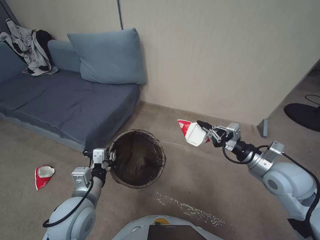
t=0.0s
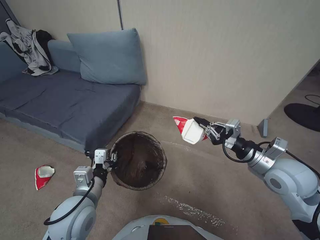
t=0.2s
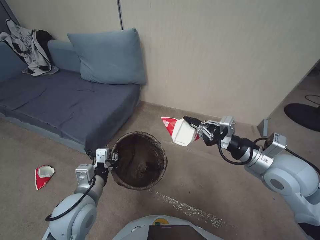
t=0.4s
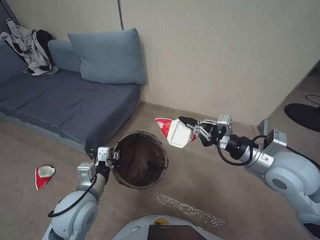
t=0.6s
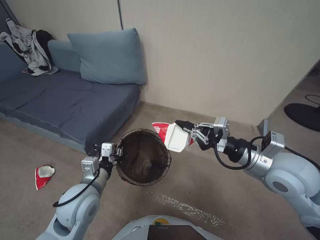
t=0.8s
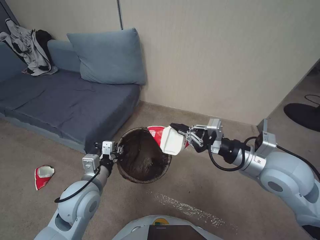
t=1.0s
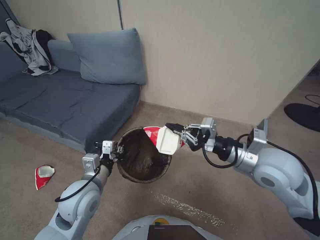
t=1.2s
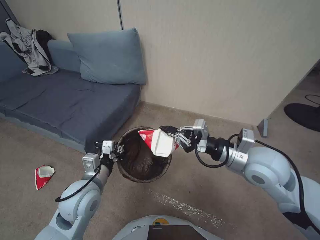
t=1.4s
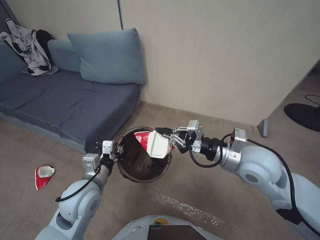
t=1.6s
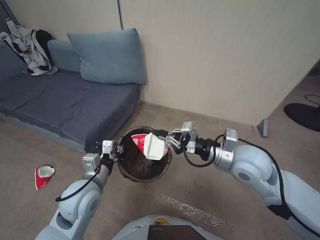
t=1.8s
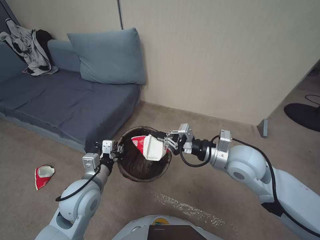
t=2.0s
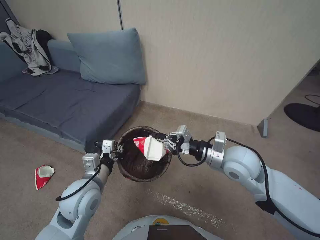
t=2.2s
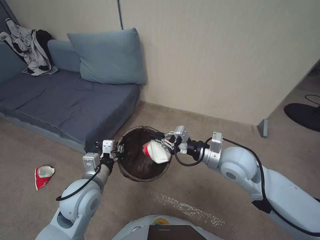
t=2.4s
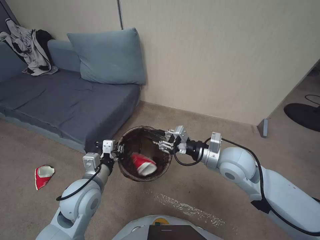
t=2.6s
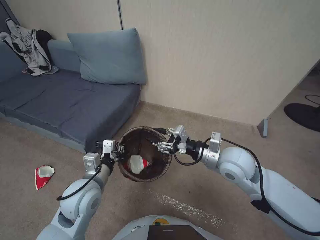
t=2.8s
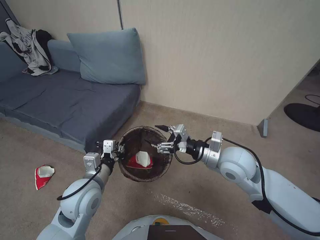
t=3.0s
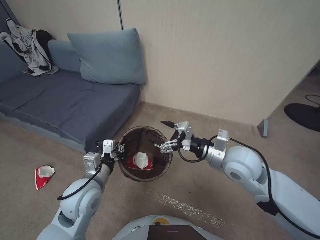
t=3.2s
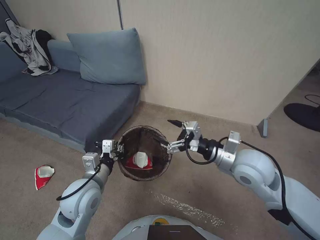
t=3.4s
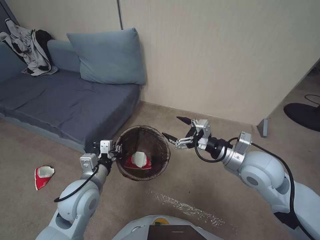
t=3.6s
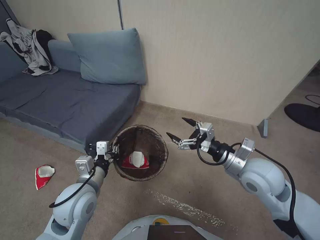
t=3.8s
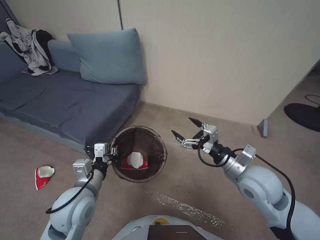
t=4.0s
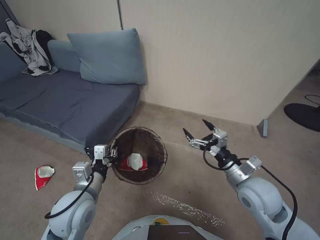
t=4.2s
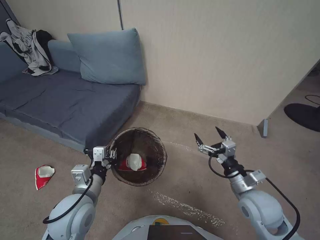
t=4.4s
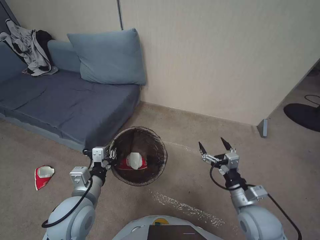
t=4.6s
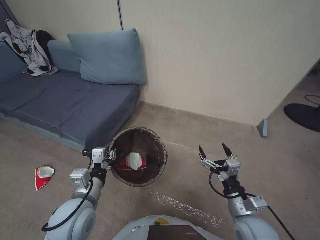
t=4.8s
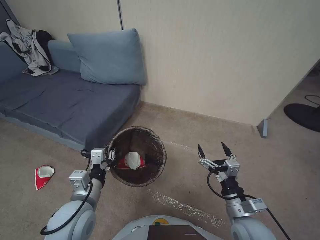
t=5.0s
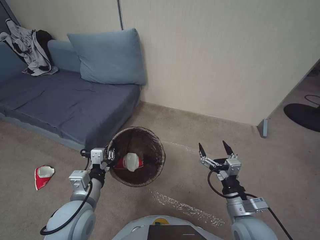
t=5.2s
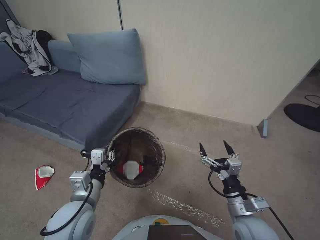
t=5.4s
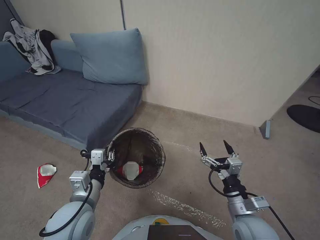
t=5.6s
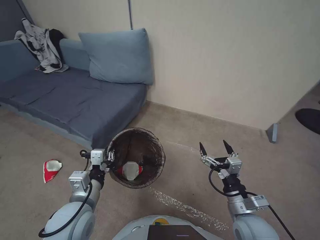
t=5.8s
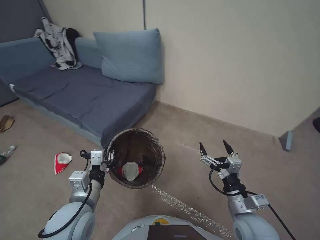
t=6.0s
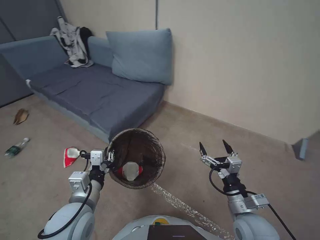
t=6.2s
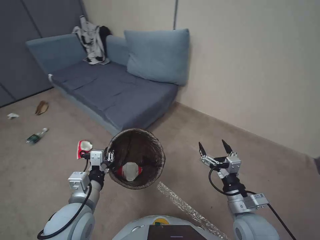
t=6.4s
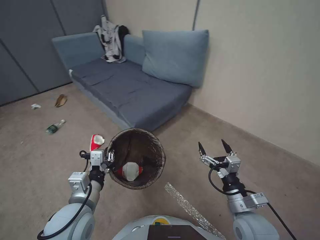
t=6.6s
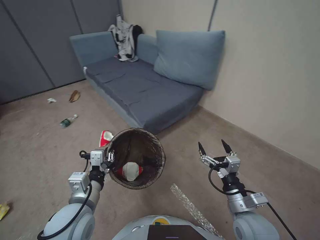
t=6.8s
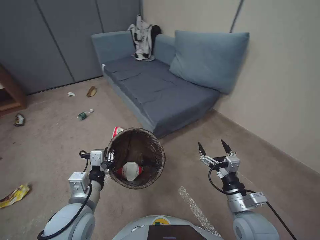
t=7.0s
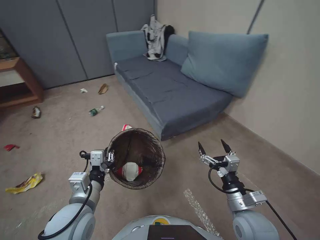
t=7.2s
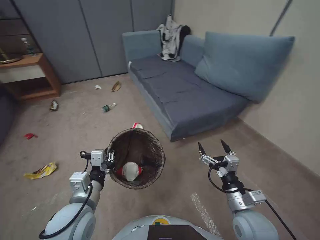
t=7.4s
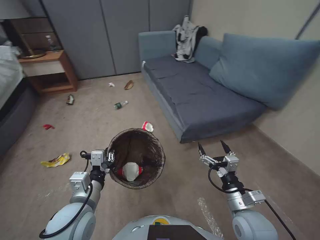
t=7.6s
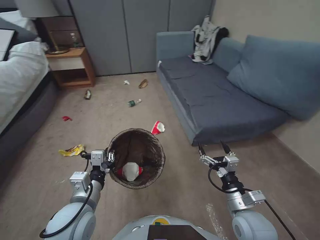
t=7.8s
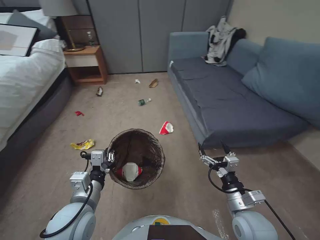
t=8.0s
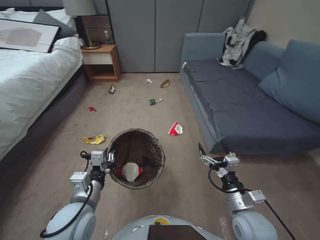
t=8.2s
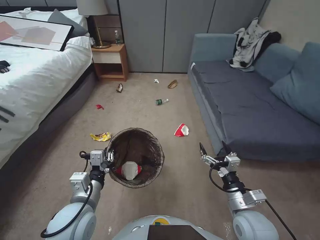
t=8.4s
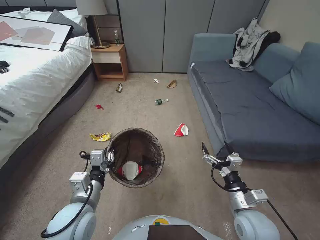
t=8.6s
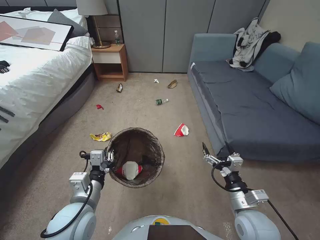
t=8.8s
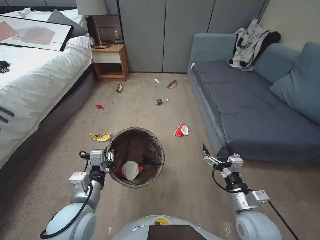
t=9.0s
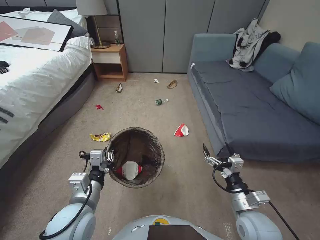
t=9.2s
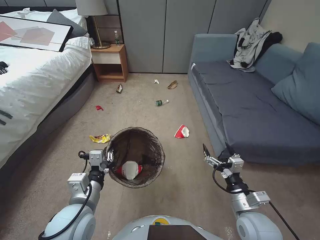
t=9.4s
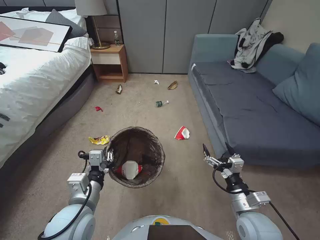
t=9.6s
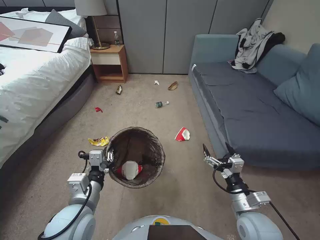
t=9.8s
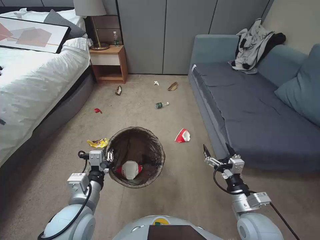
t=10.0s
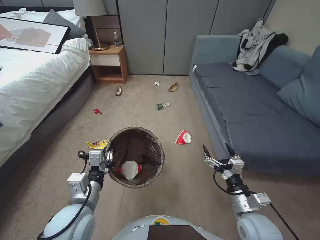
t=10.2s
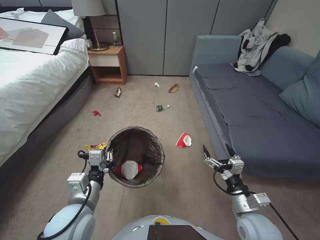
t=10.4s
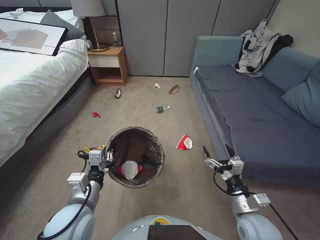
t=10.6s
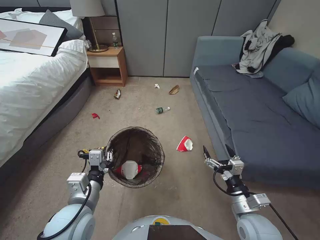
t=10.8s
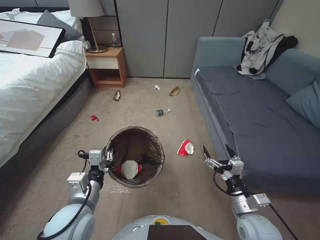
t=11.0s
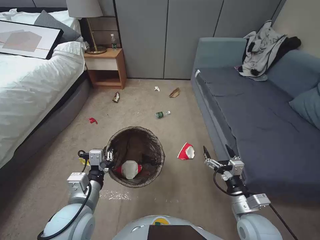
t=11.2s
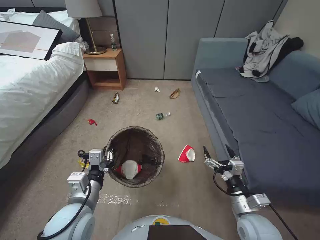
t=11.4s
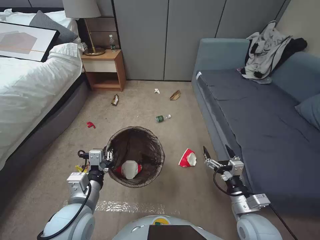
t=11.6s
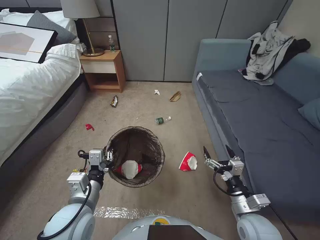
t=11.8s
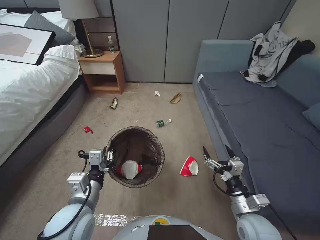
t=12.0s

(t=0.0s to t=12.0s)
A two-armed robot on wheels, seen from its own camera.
Task of the whole recording: Pick up the trash bin, then pick up the garbage from the floor and place it into the trash bin.
t=0.0s - t=1.6s: The right gripper heads to the left and upward, covering about 10 cm.
t=1.6s - t=3.0s: The right gripper moves some 5 cm, and opens up.
t=3.0s - t=4.4s: The right gripper moves backward, downward and to the right, some 15 cm, and opens up.
t=4.4s - t=6.0s: The right gripper heads backward, covering approximately 5 cm.
t=9.0s - t=10.4s: The two grippers keep their place.
t=10.4s - t=12.0s: The two grippers keep their place.

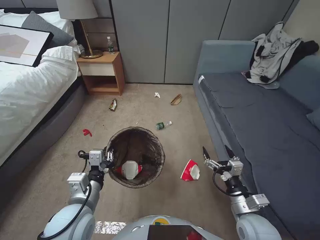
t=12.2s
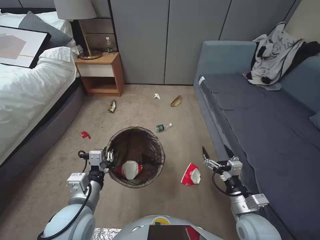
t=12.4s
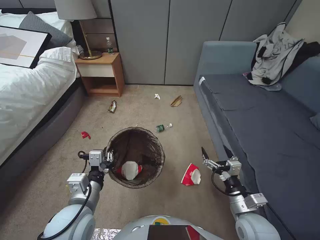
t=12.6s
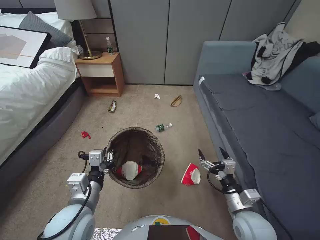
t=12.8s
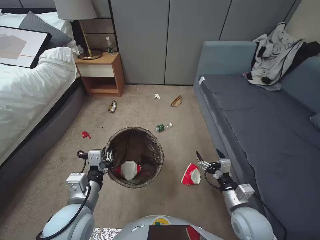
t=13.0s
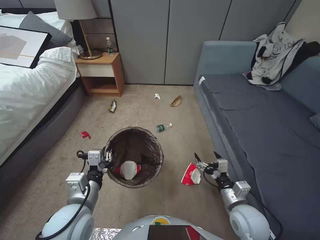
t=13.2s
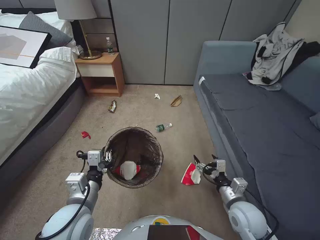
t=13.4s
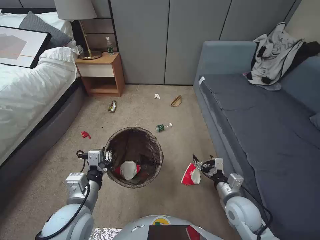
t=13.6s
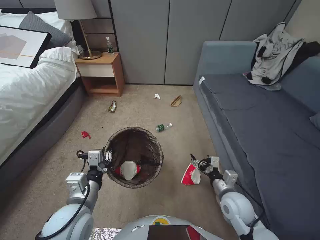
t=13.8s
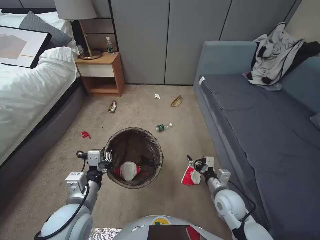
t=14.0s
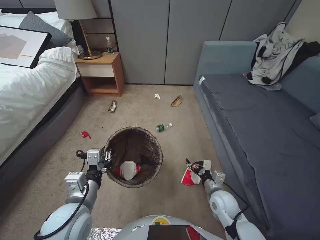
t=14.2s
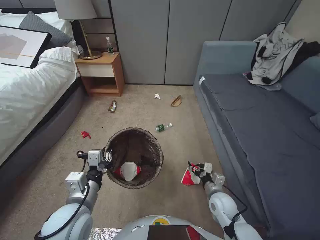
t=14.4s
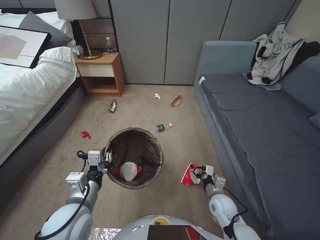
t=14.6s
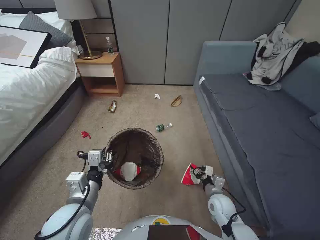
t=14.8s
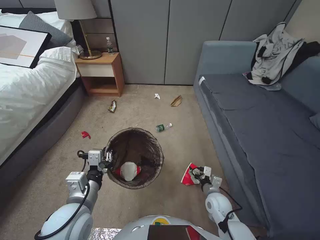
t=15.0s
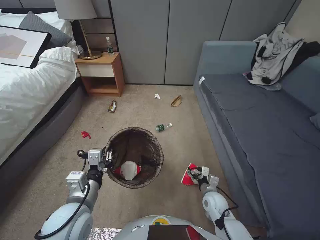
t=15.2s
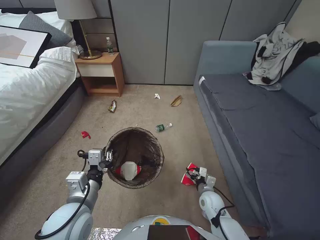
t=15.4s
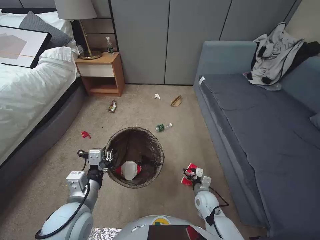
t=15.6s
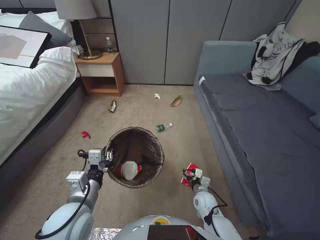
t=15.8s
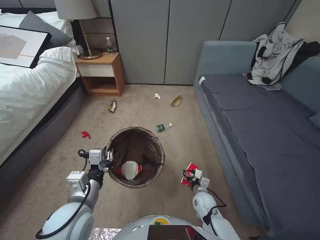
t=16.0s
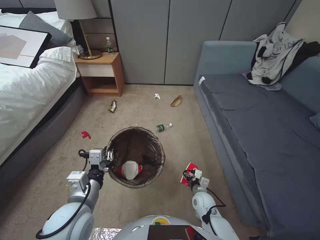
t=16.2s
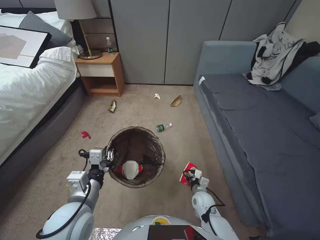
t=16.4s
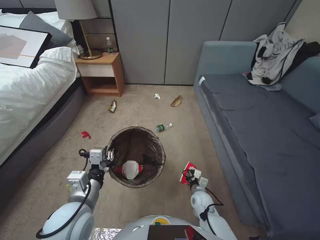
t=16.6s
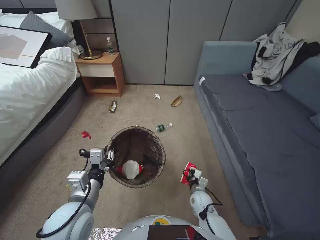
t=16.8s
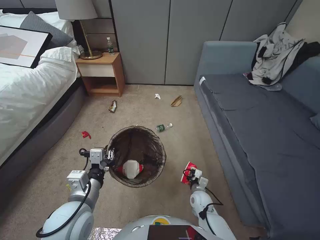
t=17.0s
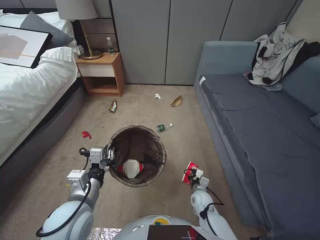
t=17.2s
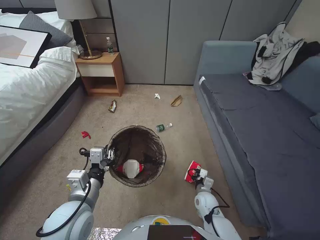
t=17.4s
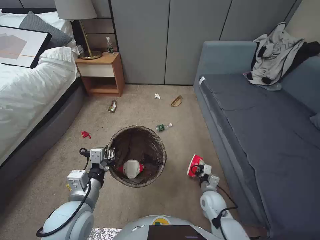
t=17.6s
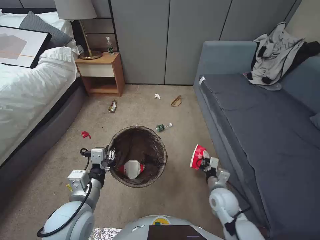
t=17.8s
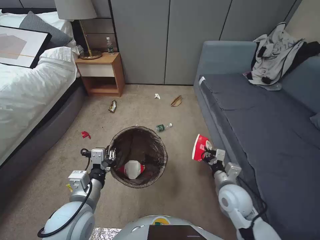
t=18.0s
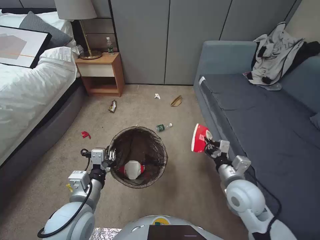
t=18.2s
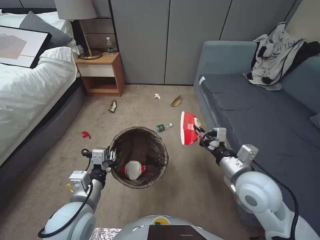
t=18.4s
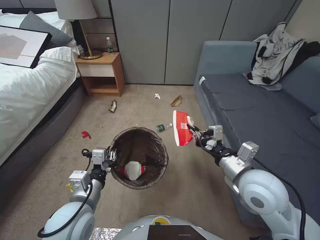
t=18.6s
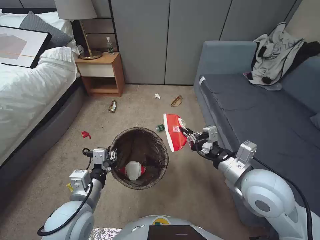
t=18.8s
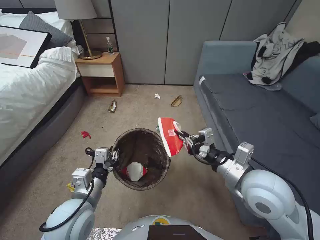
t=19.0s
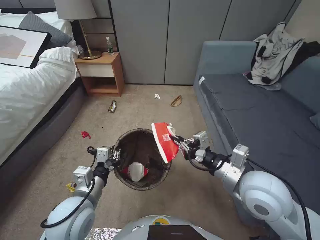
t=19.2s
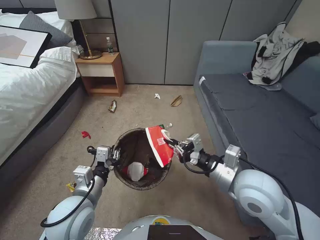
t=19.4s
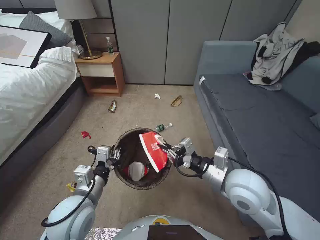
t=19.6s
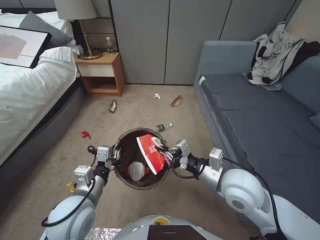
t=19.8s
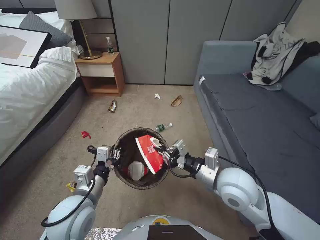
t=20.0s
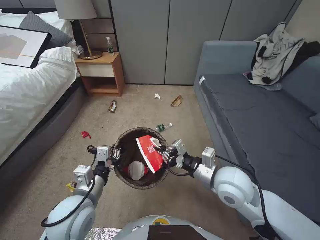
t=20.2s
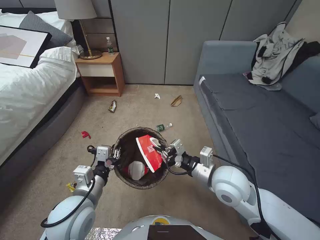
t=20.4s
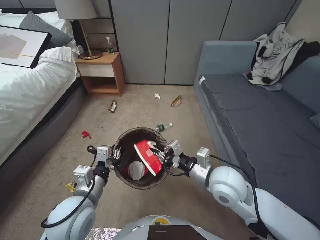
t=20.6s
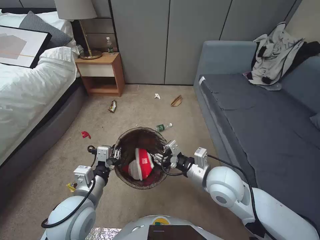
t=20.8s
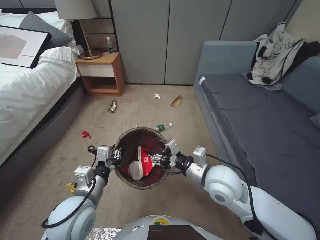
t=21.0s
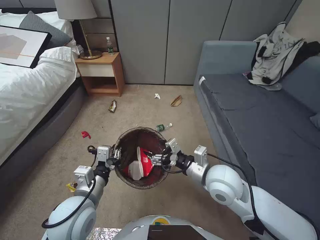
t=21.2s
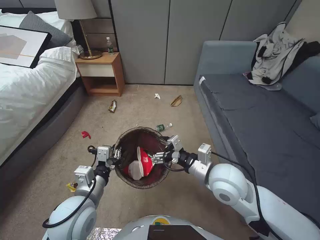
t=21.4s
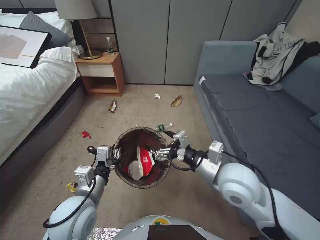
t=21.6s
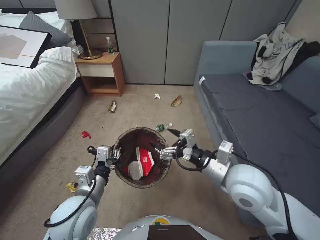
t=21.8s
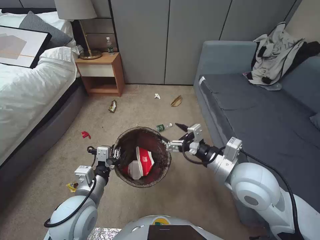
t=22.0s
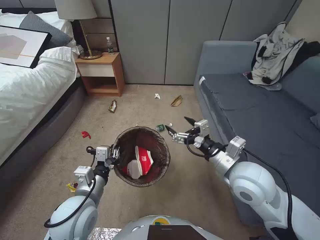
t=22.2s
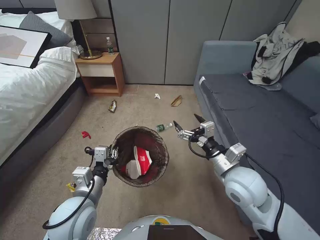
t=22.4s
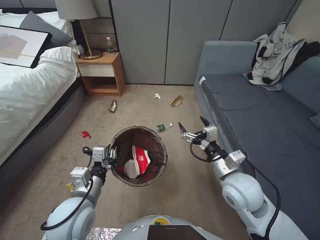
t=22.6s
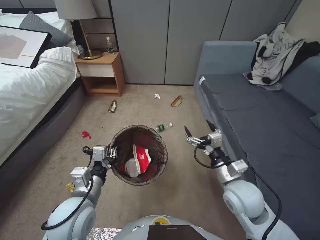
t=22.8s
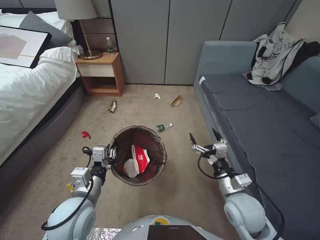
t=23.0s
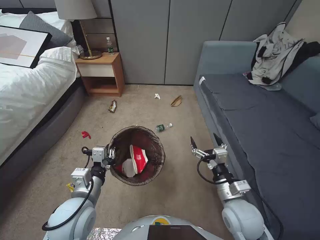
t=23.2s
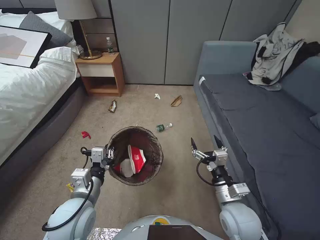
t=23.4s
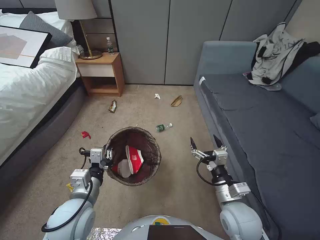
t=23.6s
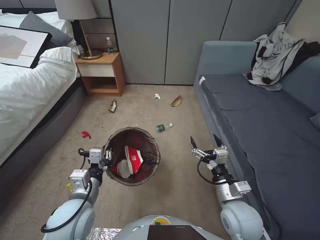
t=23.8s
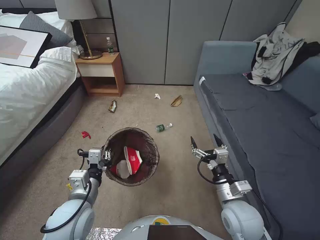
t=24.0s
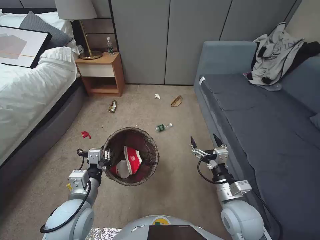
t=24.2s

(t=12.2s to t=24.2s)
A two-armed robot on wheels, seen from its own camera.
Task of the whole recording: Pick up the trash bin, then pick up the garbage from the floor and place it into the trash bin.
t=12.2s - t=13.8s: The right gripper is displaced forward by approximately 5 cm.
t=13.8s - t=15.2s: The right gripper goes approximately 10 cm downward.
t=15.2s - t=16.6s: The right gripper goes roughly 5 cm downward, and closes its fingers.
t=16.6s - t=18.2s: The right gripper travels upward by some 25 cm.
t=18.2s - t=19.8s: The right gripper shifts roughly 10 cm upward.
t=19.8s - t=21.2s: The right gripper shifts by some 5 cm, and opens up.
t=21.2s - t=22.6s: The right gripper heads to the right, covering roughly 5 cm.
t=22.6s - t=24.2s: The right gripper heads downward and backward, covering approximately 10 cm.
